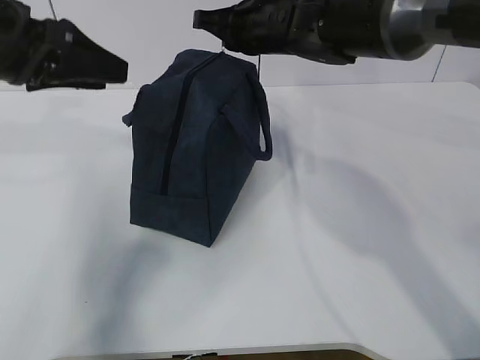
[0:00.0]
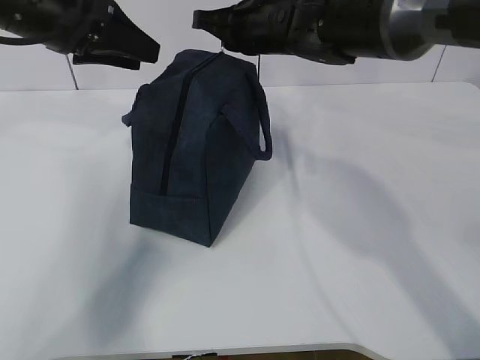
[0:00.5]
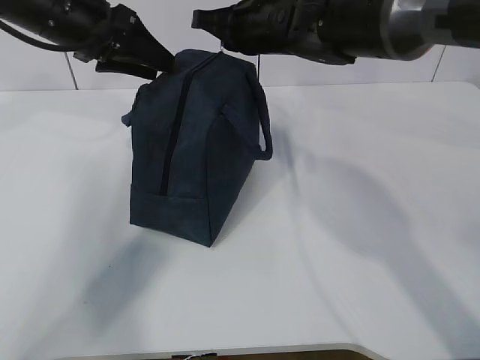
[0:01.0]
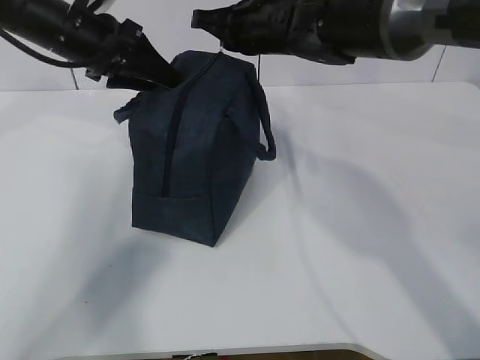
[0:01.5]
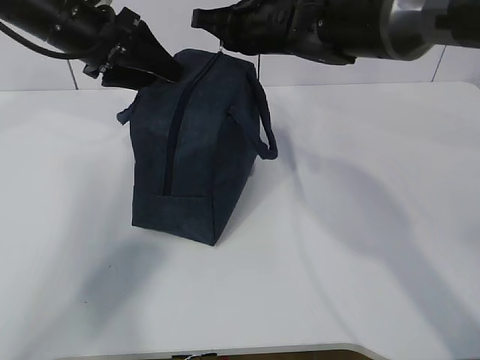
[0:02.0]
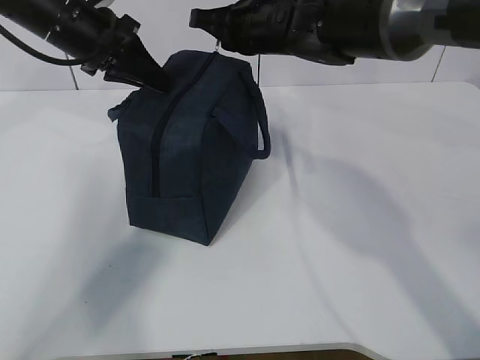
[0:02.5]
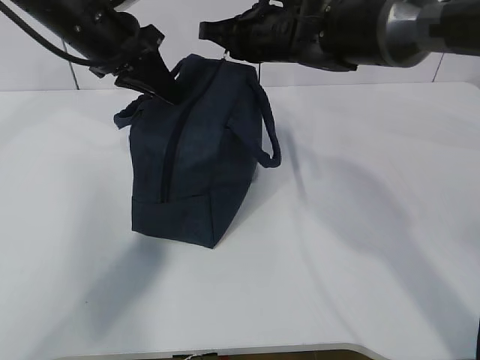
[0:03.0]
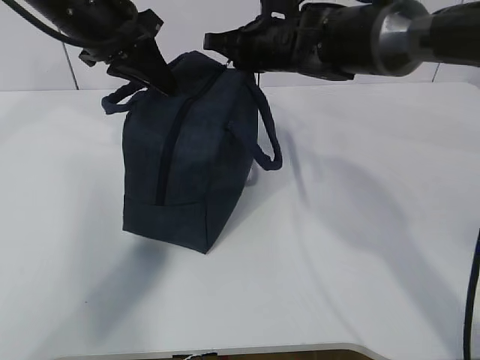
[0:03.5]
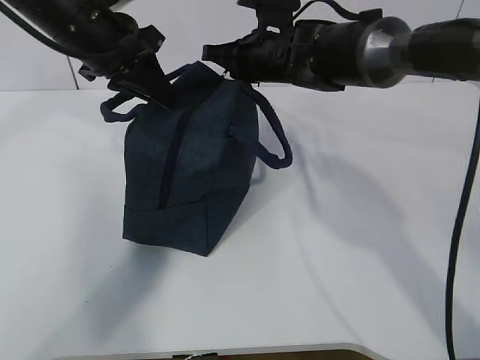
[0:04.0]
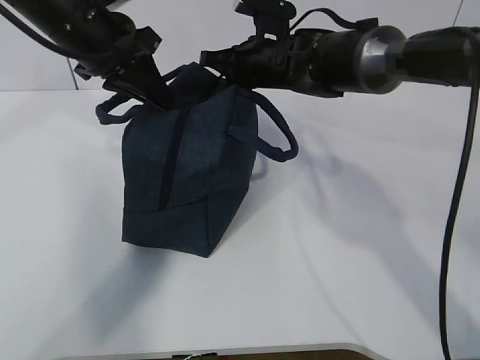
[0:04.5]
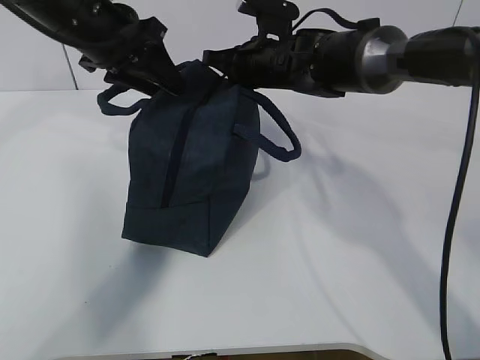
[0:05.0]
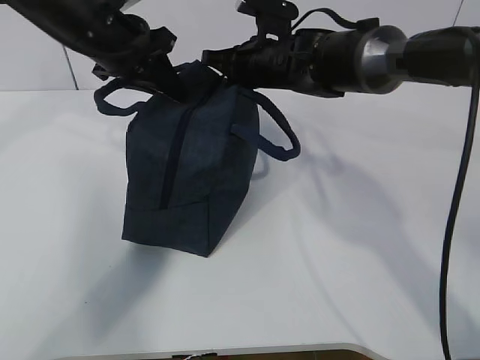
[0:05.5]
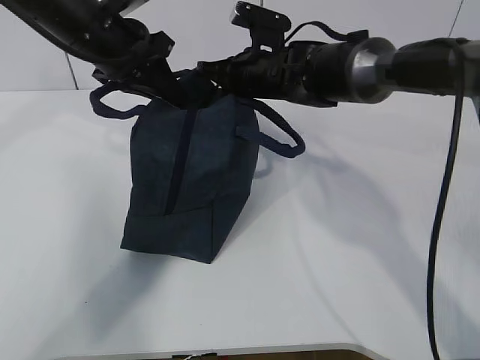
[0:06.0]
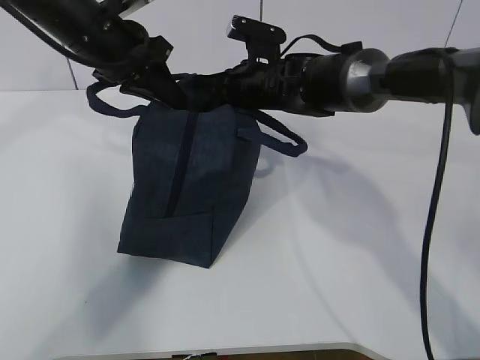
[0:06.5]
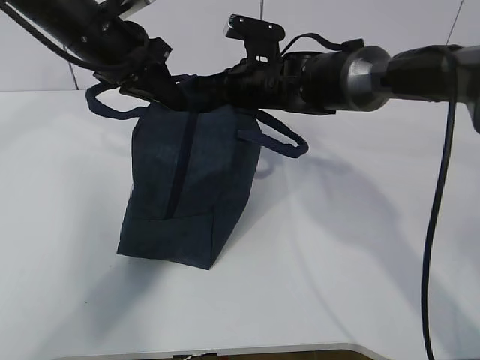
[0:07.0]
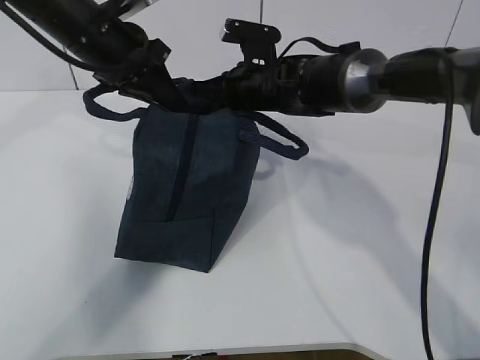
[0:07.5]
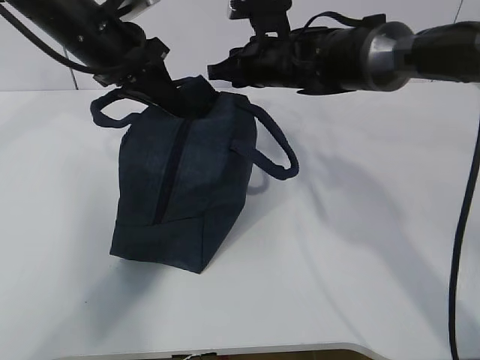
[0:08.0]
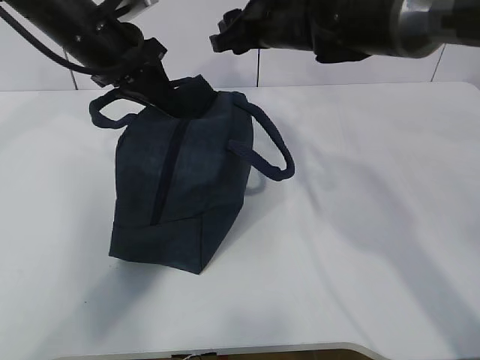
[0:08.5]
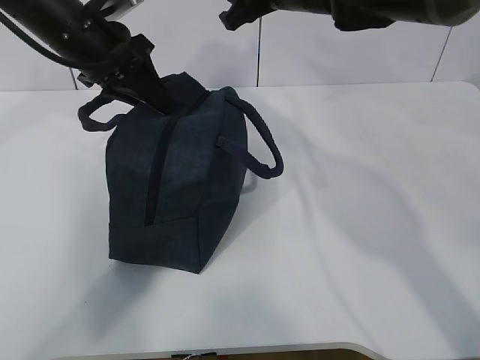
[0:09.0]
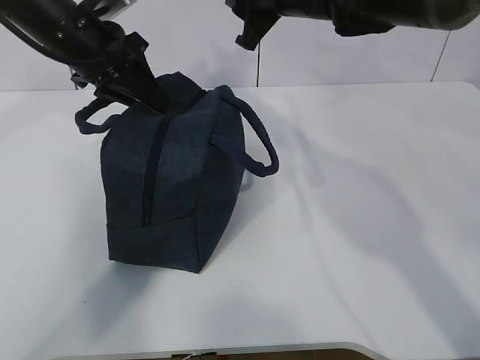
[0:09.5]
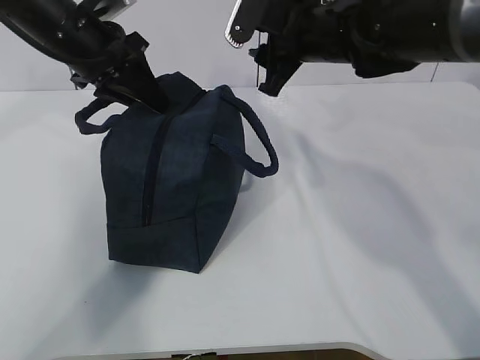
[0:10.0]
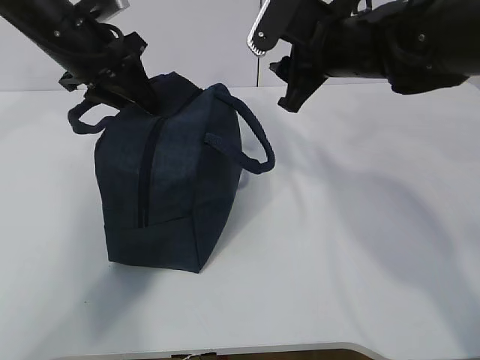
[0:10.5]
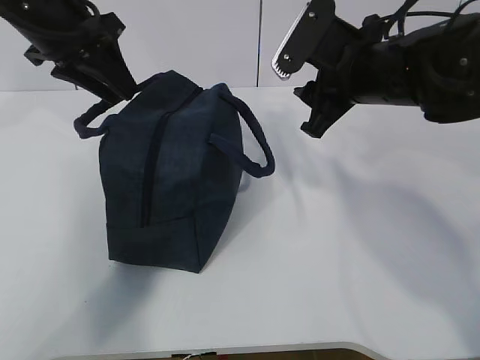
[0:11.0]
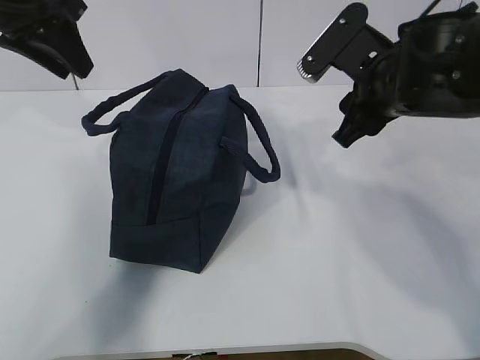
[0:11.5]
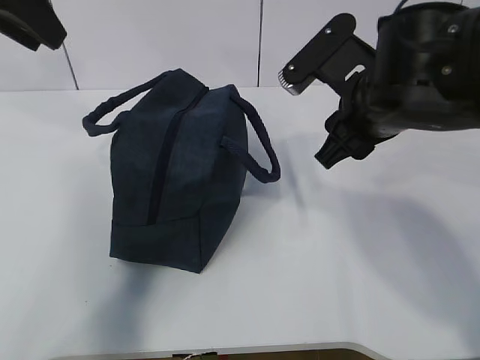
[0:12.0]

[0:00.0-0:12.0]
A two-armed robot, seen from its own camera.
0:00.0 to 0:02.0: The left gripper shifts about 15 cm forward.
0:02.0 to 0:04.0: The right gripper is displaced downward by roughly 5 cm. The left gripper closes up.
0:04.0 to 0:06.0: The left gripper opens, then closes once more.
0:06.0 to 0:08.0: The right gripper opens its fingers.
0:08.0 to 0:10.0: The right gripper moves upward and backward, some 10 cm, while the left gripper opens up.
0:10.0 to 0:12.0: The left gripper travels upward and backward by approximately 15 cm, while the right gripper travels backward by some 15 cm.

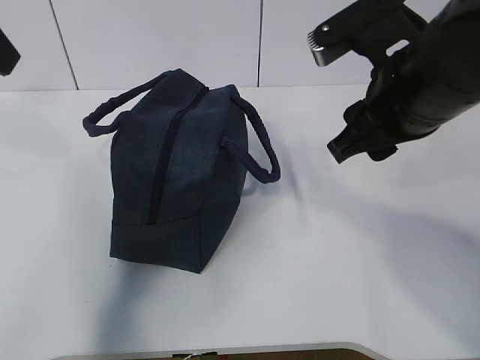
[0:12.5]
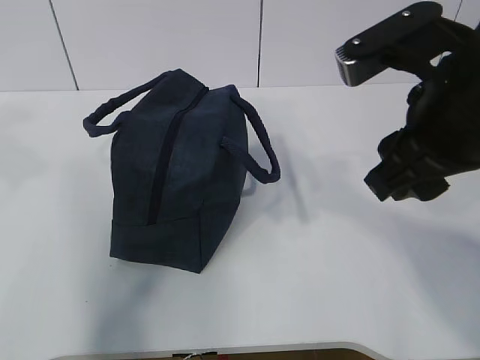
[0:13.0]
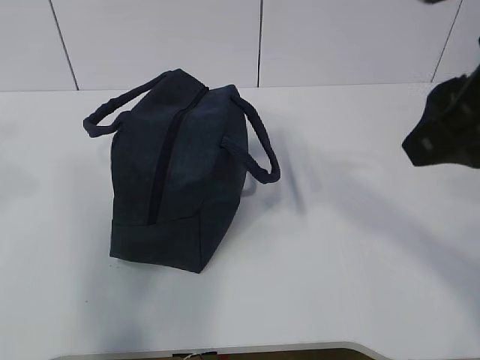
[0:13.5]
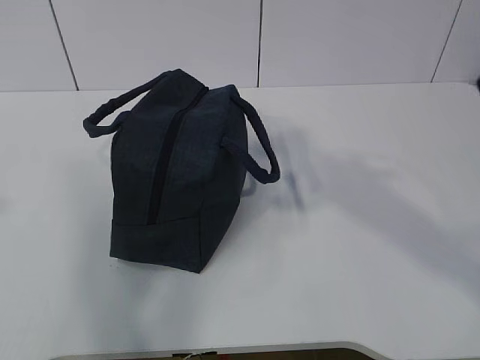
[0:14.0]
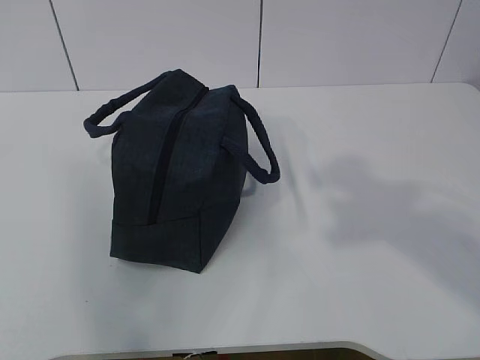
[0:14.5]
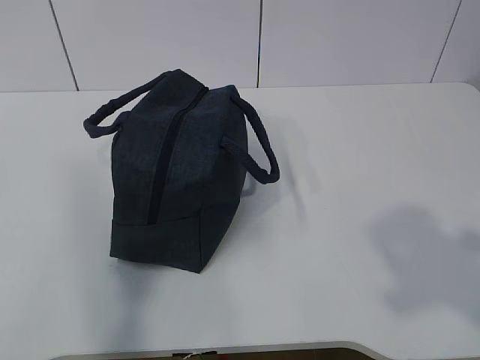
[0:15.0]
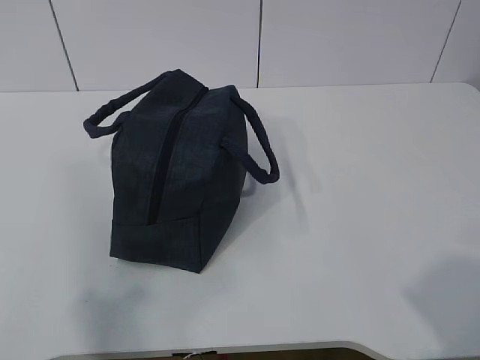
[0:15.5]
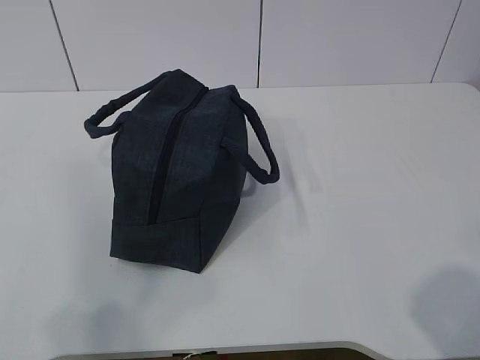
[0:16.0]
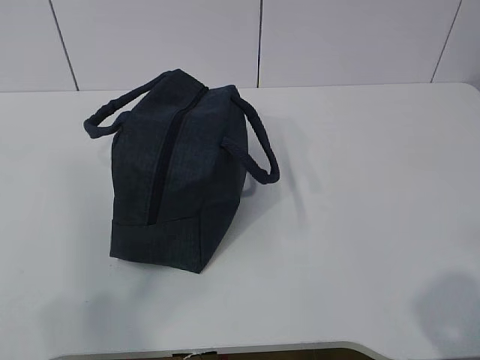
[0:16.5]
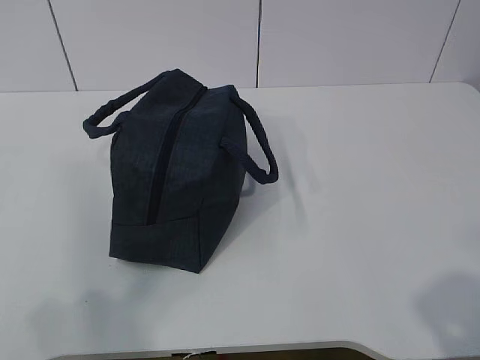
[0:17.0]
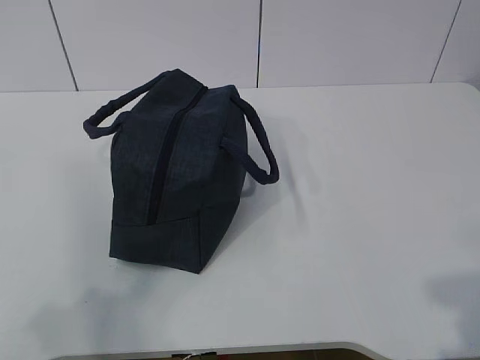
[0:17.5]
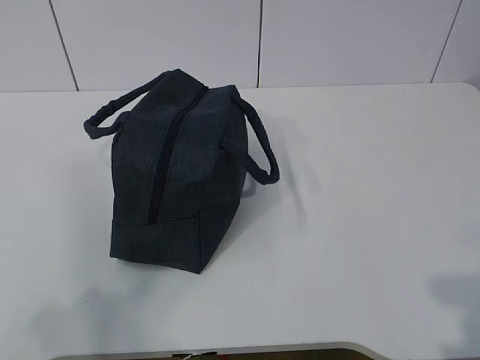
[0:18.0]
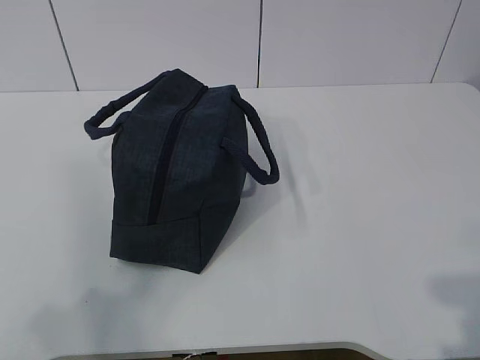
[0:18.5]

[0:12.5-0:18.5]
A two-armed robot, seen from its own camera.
0:12.5 to 0:14.5: The right gripper goes roughly 25 cm backward, upward and to the right, while the left gripper heads backward, covering approximately 25 cm.
0:14.5 to 0:16.5: The right gripper heads downward and backward, covering approximately 15 cm.

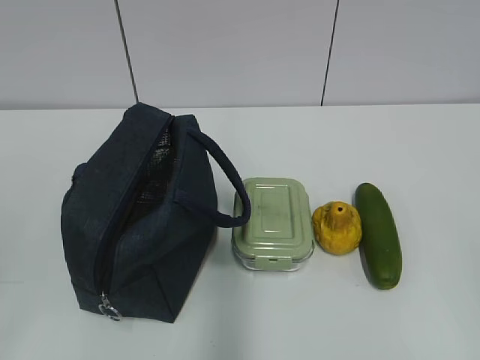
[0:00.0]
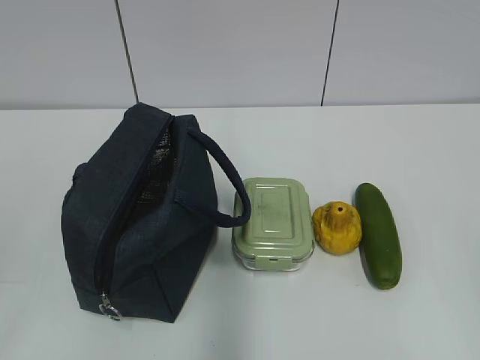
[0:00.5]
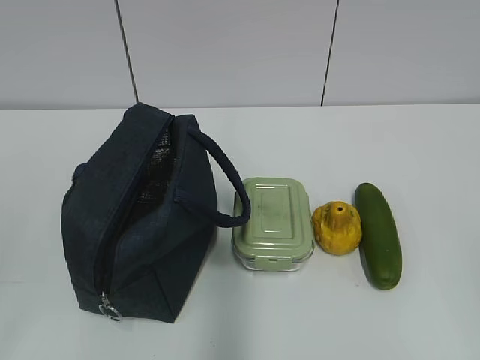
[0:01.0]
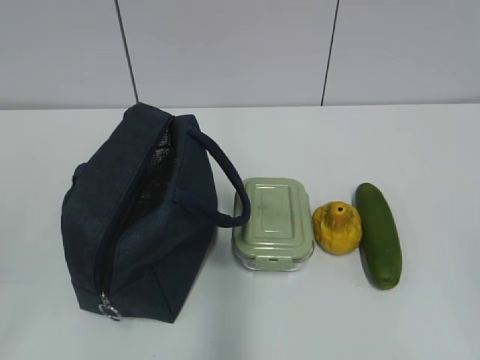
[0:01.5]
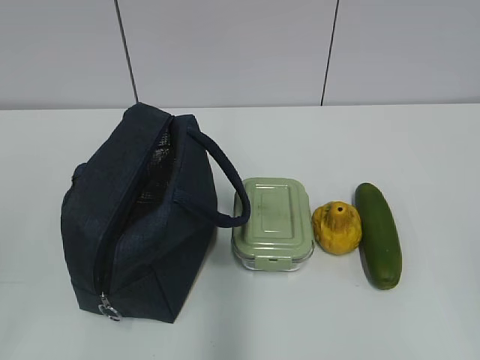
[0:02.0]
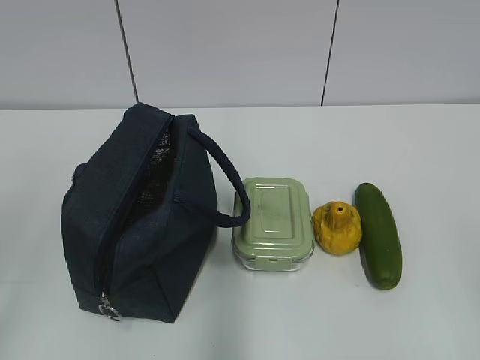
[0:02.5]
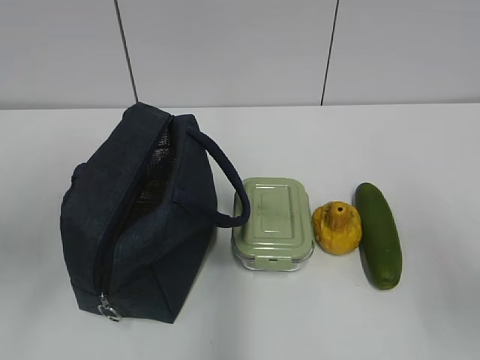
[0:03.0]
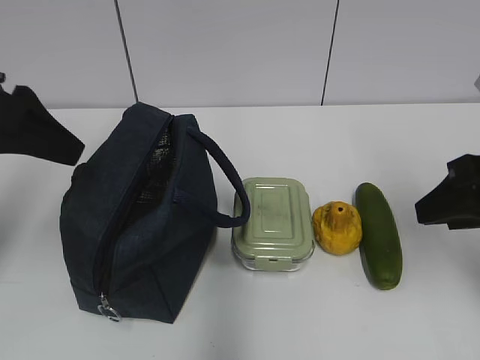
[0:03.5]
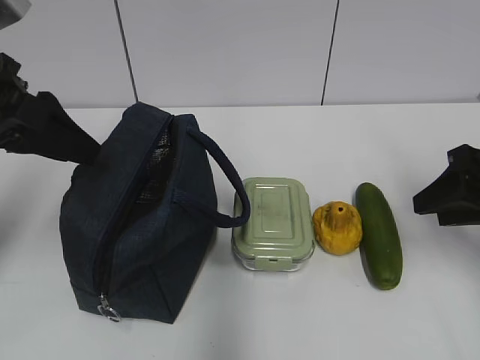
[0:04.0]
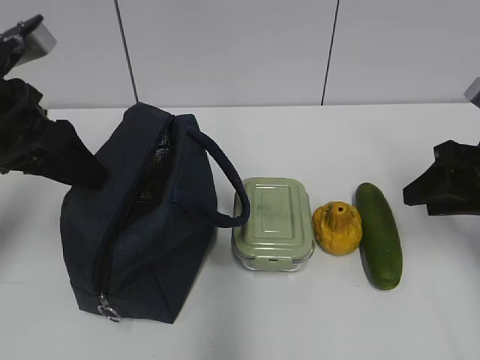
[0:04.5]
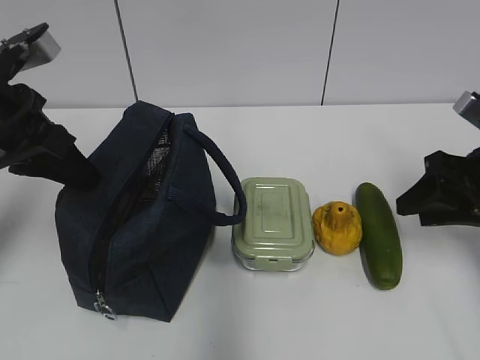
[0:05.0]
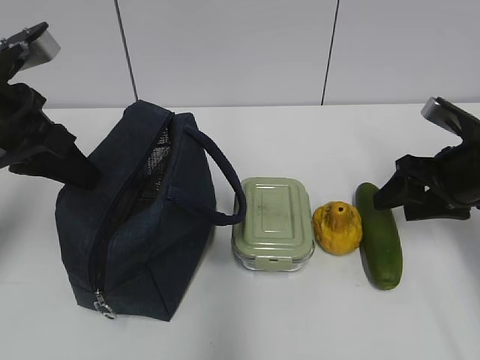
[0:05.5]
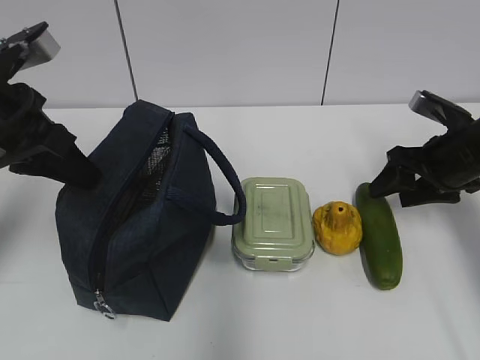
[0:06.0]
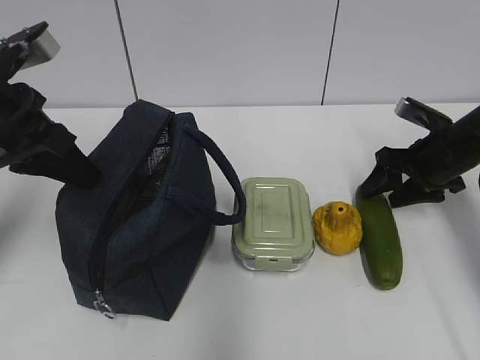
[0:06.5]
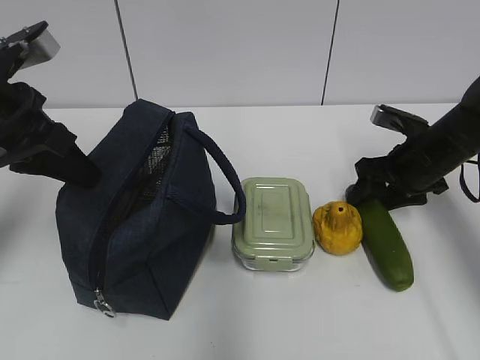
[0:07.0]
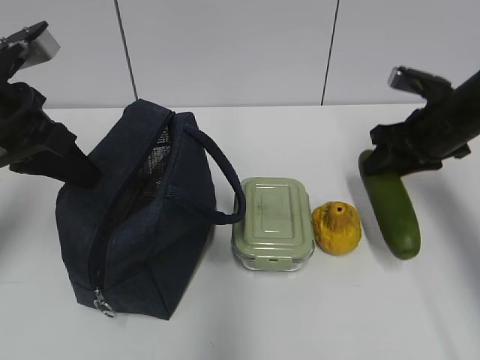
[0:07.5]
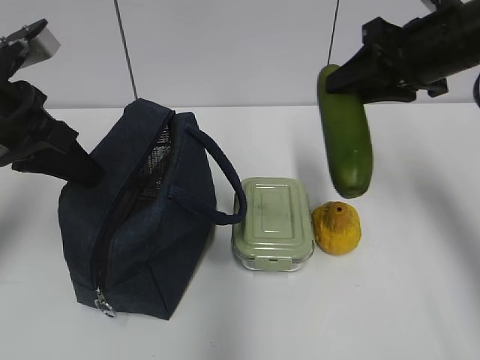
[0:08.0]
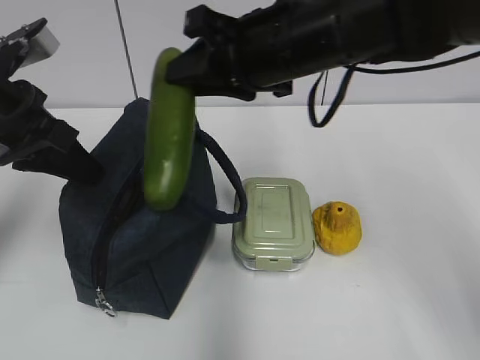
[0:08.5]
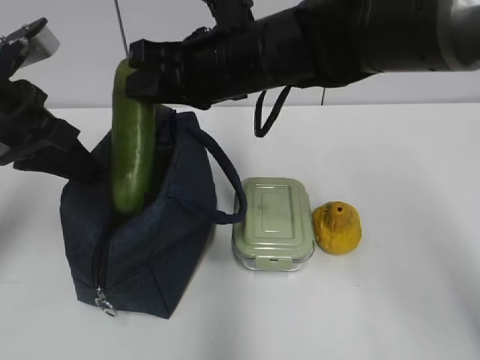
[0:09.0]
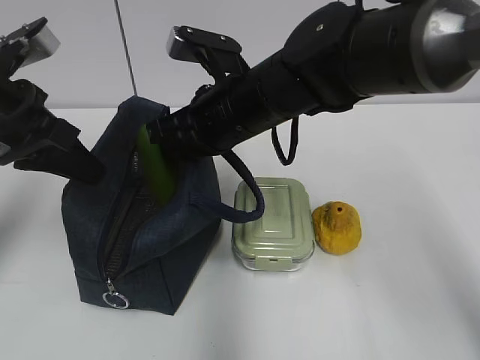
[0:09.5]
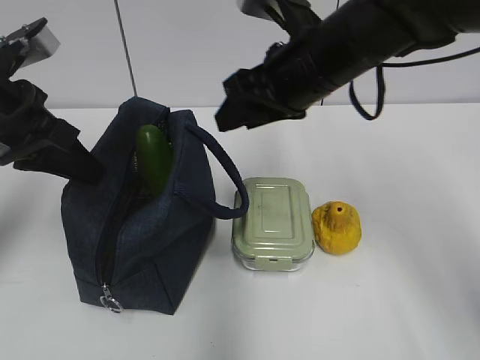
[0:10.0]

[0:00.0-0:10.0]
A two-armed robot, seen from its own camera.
Step, 0:00.0 to 0:05.0: Grab the lunch bag with your left hand.
Step, 0:05.5 to 0:07.0: Grab the cucumber with your right hand.
Step, 0:07.5 to 0:09.5: Place it into the bag with your right hand.
0:02.0 to 0:04.0: The two grippers go about 30 cm forward. The right gripper opens. The left gripper opens.
0:04.0 to 0:06.0: The right gripper shifts about 10 cm forward and downward. The left gripper closes.
0:06.0 to 0:08.0: The right gripper moves upward and to the left, some 15 cm, and closes its fingers.
0:08.0 to 0:10.0: The right gripper moves to the left, approximately 10 cm, and closes, then reopens.
